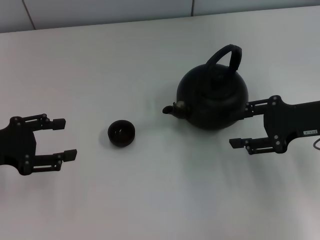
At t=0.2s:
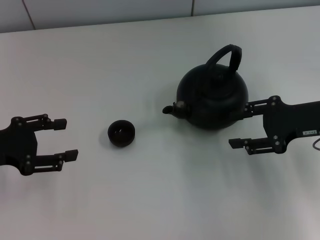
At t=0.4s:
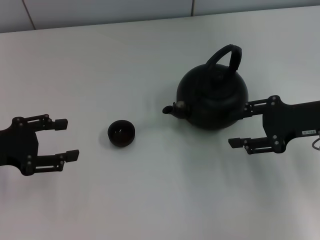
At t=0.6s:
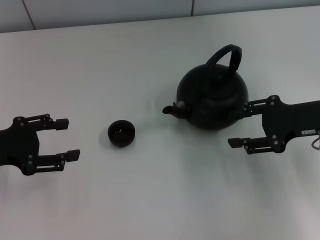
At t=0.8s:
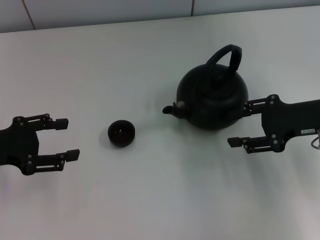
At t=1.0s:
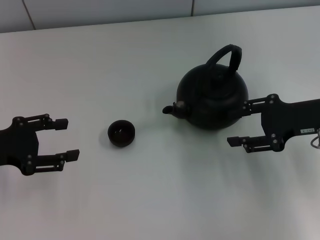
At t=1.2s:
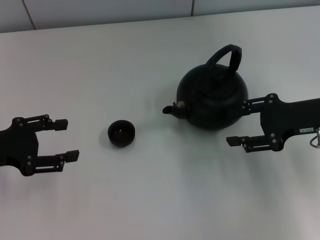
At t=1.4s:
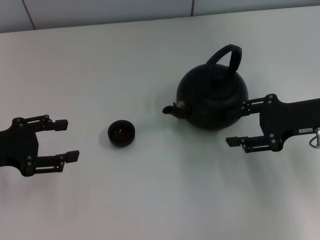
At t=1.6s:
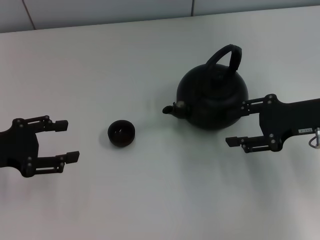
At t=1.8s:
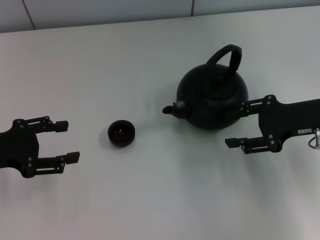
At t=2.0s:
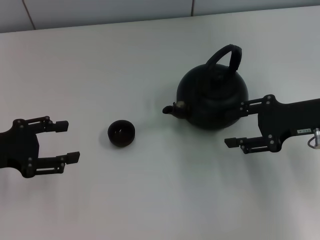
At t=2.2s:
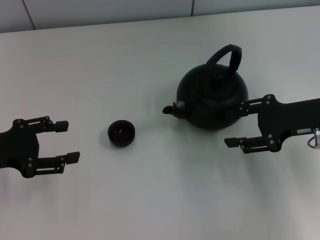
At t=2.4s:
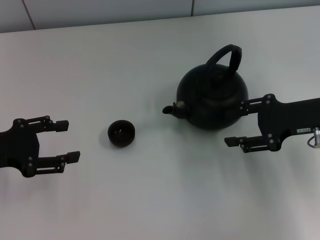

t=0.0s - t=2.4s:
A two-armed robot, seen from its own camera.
Task of the whole recording: Grasp the handle of the teapot with one hand and pour tea into the teacup.
t=0.0s - t=2.4s: Both grippers stay put.
